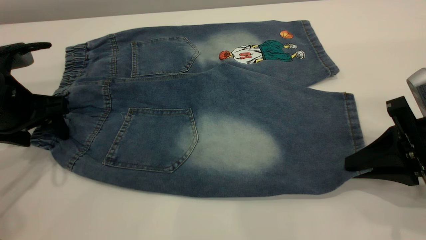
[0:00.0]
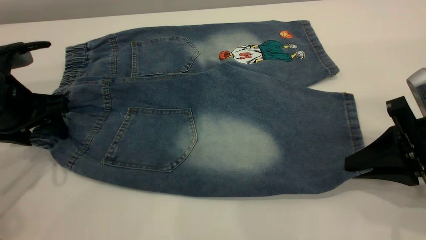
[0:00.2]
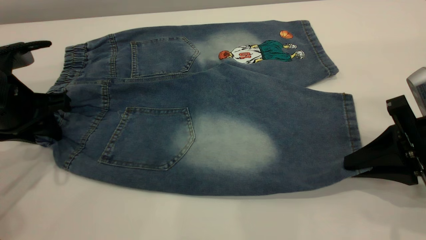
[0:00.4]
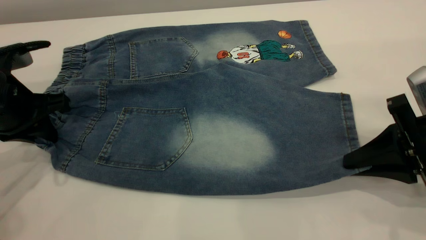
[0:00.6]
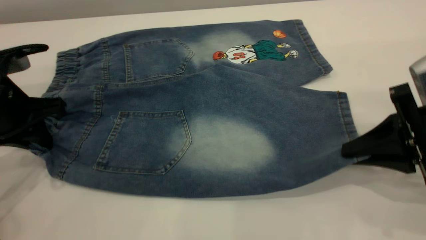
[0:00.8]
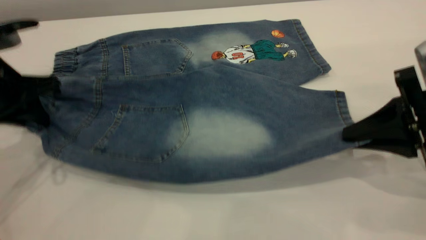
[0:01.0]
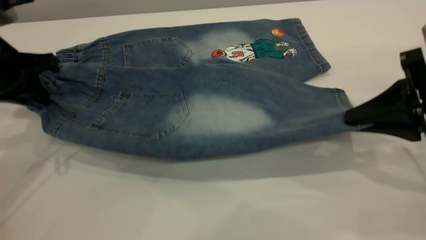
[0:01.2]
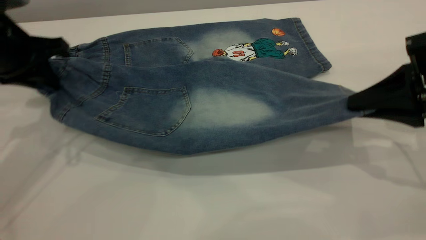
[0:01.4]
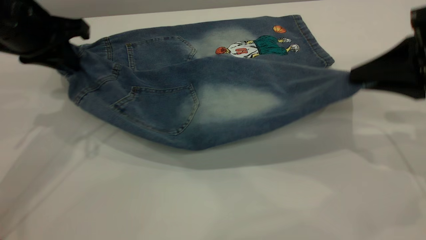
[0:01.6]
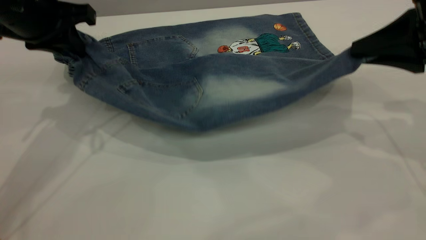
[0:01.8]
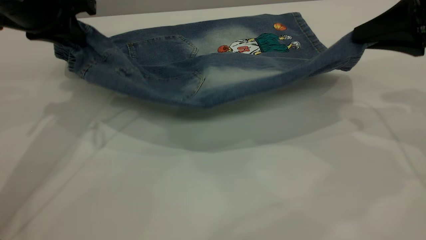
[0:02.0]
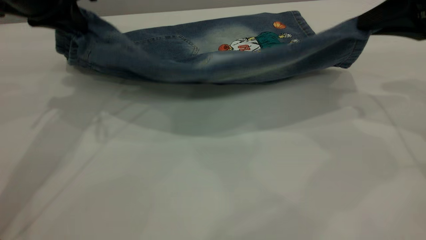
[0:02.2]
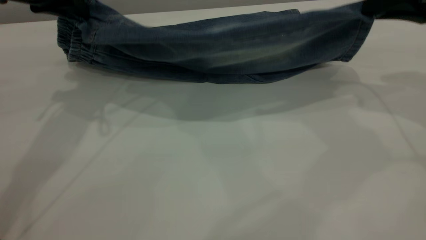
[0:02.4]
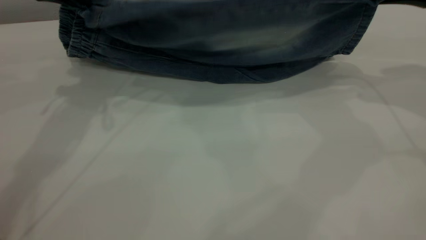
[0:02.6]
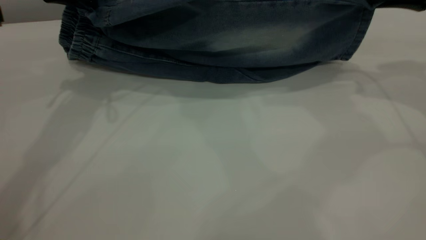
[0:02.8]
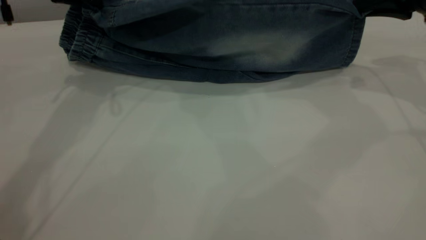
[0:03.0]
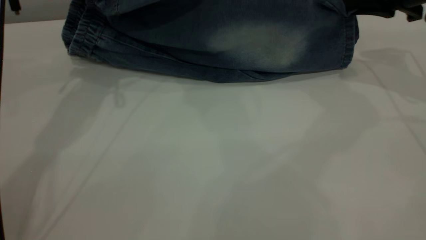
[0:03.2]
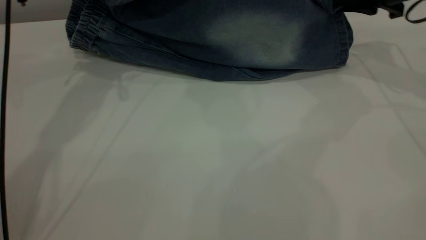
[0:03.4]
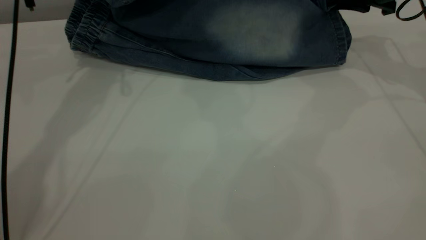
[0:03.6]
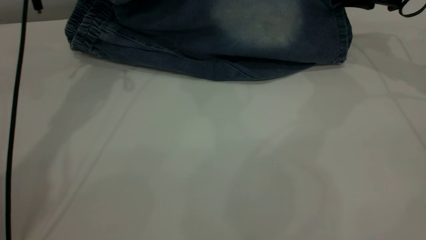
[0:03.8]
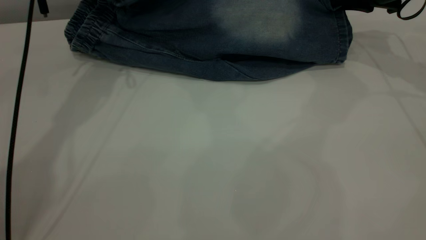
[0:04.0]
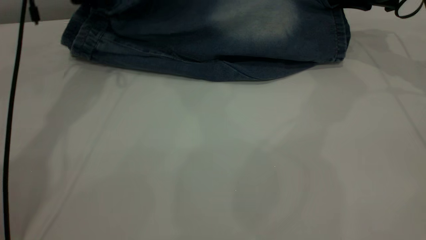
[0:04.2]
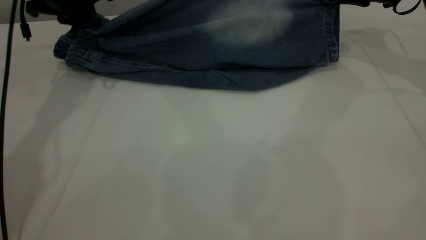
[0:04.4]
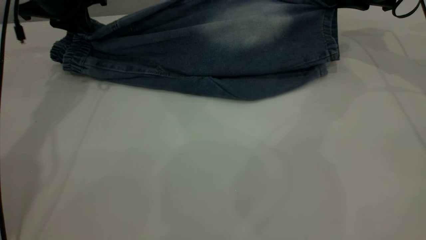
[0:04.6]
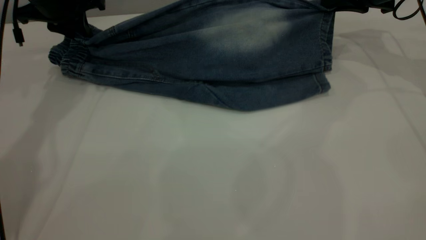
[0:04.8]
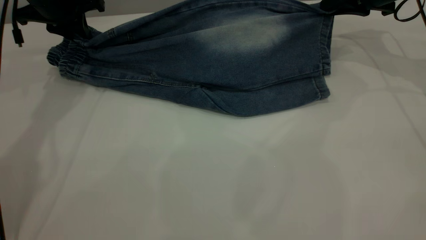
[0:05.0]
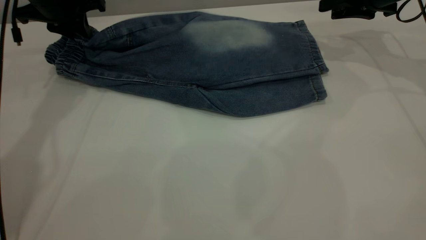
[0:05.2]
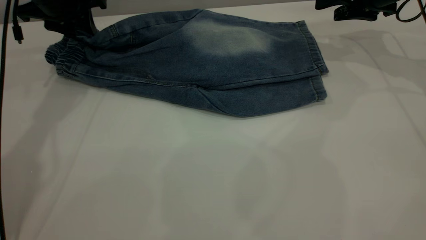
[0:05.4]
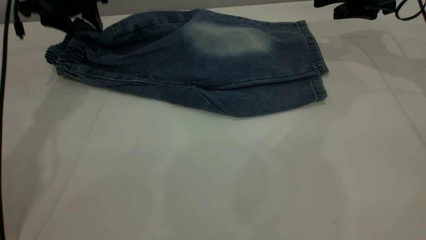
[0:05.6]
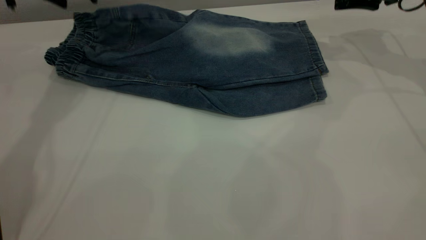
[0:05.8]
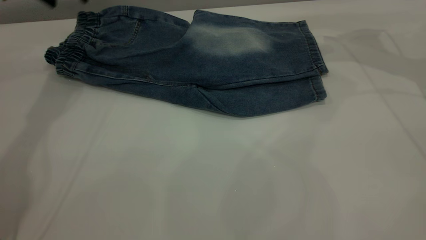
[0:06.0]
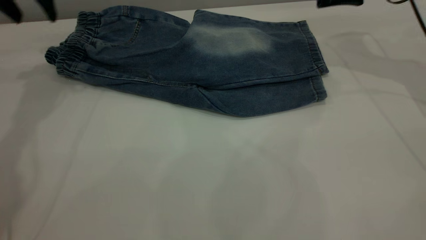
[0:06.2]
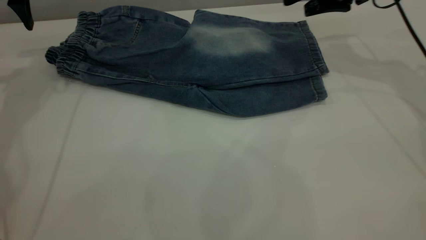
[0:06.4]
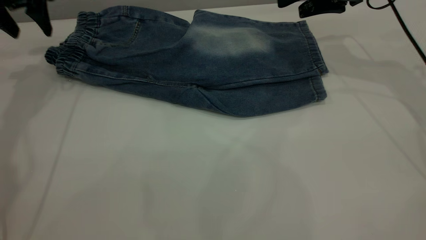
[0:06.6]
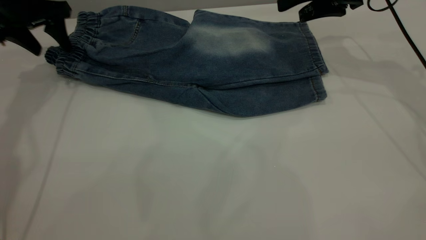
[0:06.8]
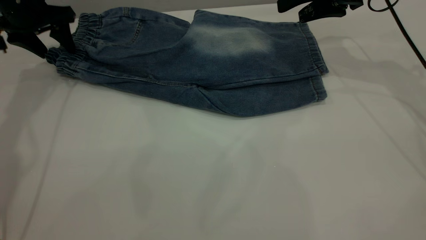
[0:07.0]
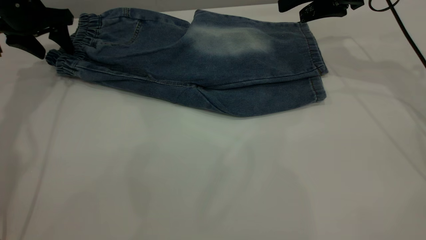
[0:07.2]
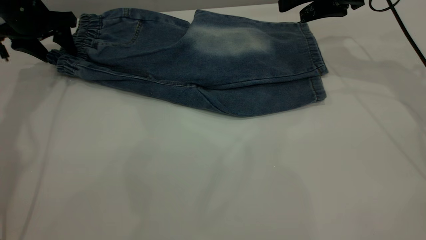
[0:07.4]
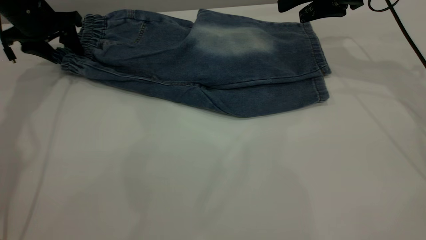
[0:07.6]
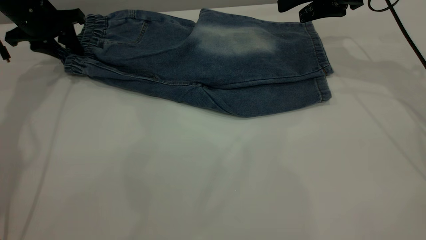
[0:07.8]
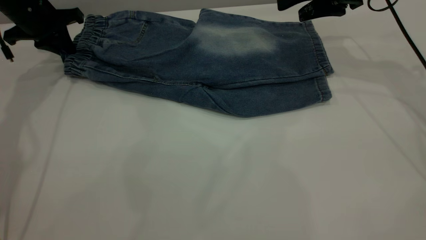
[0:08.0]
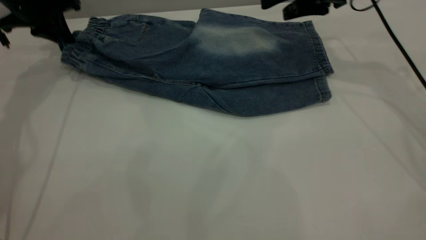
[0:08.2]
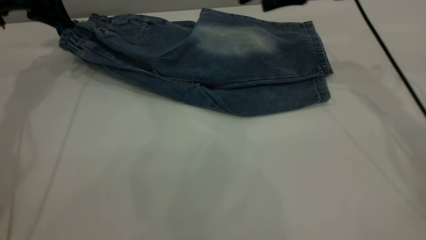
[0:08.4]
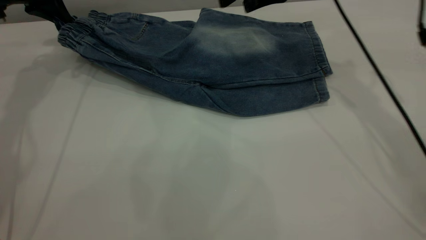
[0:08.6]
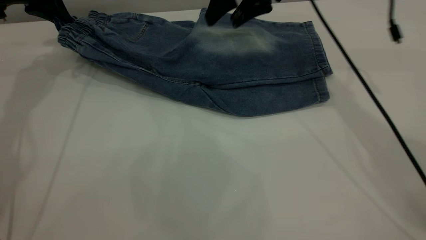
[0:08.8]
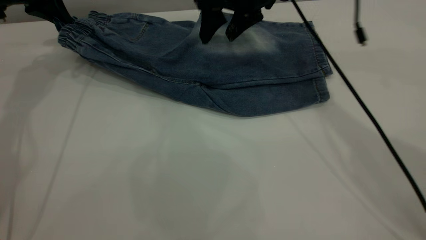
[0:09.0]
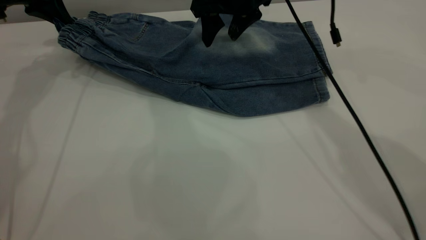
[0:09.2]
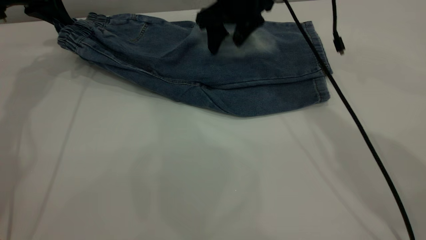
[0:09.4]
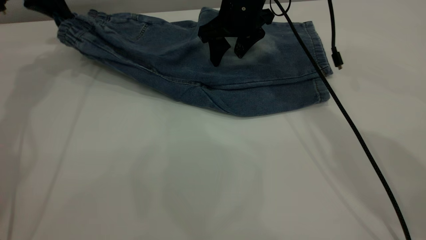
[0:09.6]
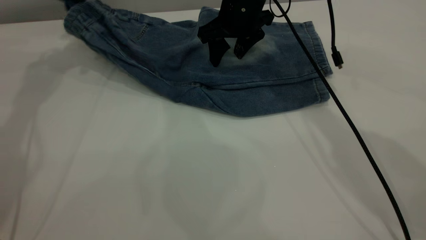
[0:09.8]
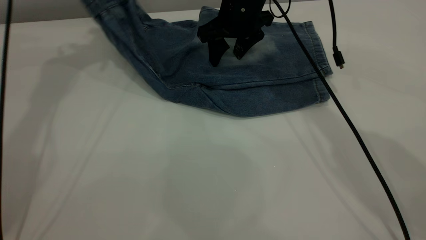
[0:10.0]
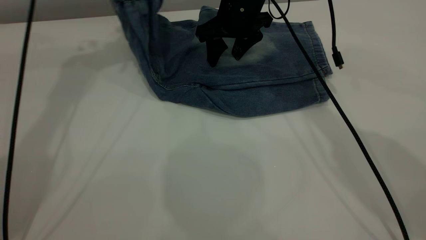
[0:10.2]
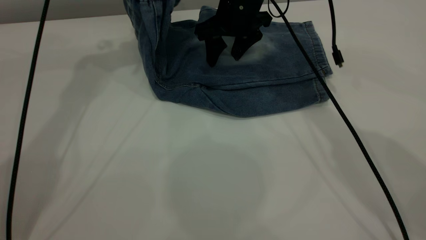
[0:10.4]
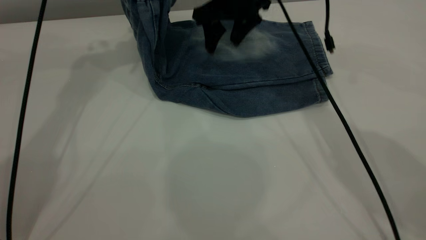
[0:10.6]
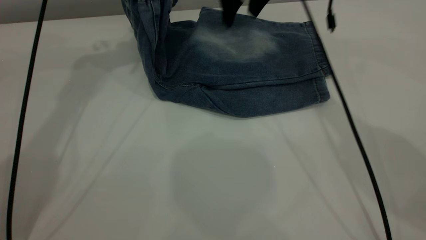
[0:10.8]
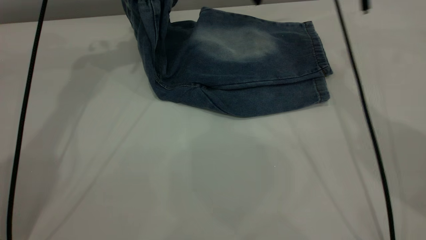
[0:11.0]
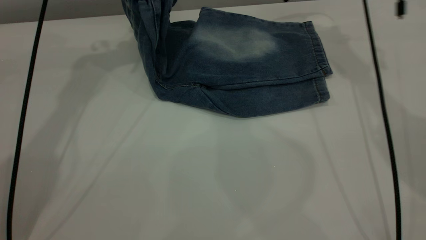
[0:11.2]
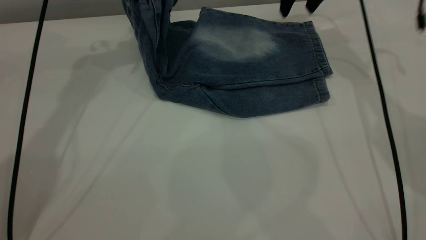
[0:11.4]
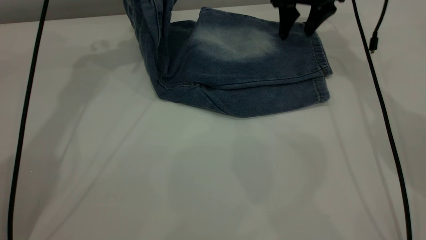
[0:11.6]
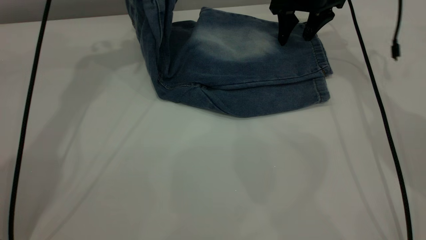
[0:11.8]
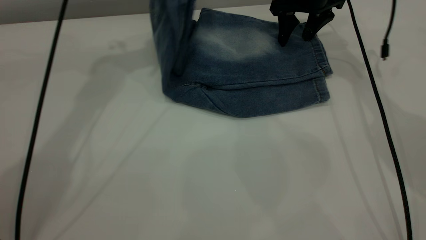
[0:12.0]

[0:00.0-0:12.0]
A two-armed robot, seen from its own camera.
Step, 0:00.0 to 0:06.2: Fold the bottom of the pants upward.
0:00.0 to 0:01.6: The left gripper moves upward, forward and to the right, approximately 10 cm, and closes up, while the right gripper moves upward, some 10 cm.
0:01.6 to 0:03.0: The left gripper heads forward, covering some 10 cm. Meanwhile the right gripper travels forward by roughly 15 cm.
0:03.0 to 0:04.4: The left gripper goes approximately 10 cm downward and forward; the right gripper moves forward, roughly 10 cm.
0:04.4 to 0:06.0: The right gripper opens its fingers; the left gripper shifts some 5 cm upward, and opens up.
0:06.0 to 0:07.6: The left gripper heads downward, covering about 10 cm; the right gripper is displaced to the left by roughly 5 cm.
0:07.6 to 0:09.0: The left gripper shifts approximately 5 cm upward, and closes up; the right gripper is displaced to the left by roughly 15 cm.
0:09.0 to 0:10.4: The left gripper shifts roughly 15 cm to the right and upward.
0:10.4 to 0:12.0: The left gripper goes about 5 cm to the right. The right gripper is displaced to the right and forward by about 15 cm.

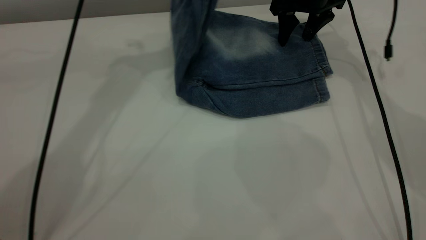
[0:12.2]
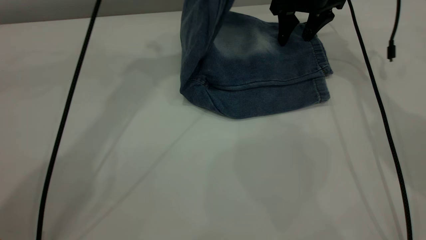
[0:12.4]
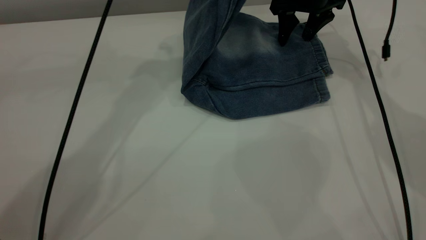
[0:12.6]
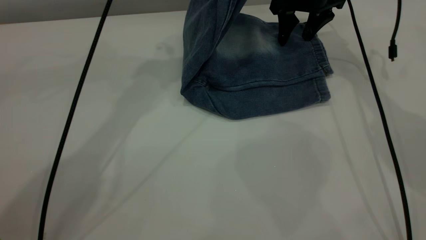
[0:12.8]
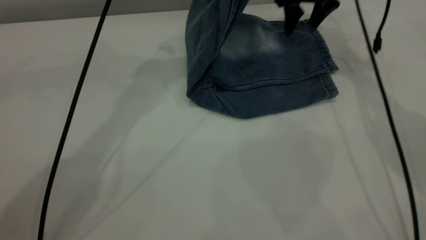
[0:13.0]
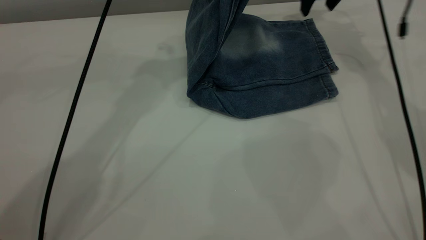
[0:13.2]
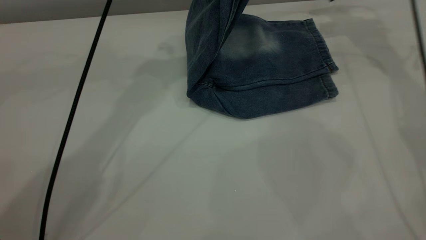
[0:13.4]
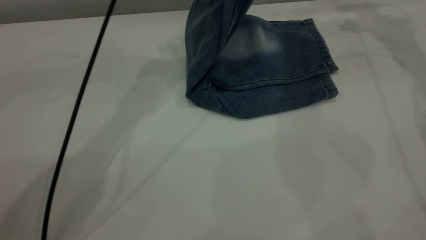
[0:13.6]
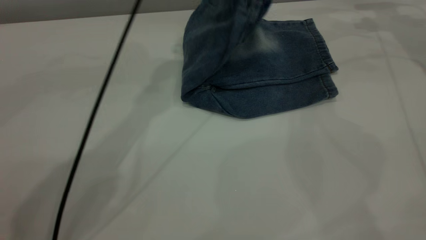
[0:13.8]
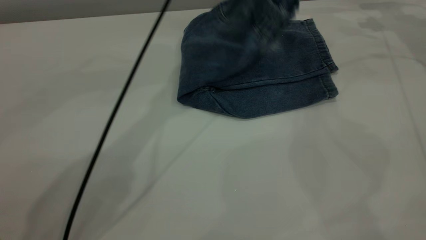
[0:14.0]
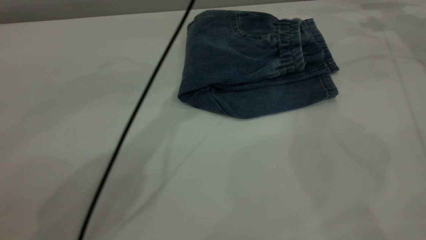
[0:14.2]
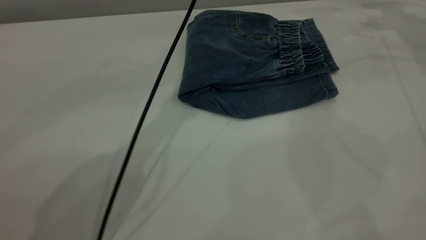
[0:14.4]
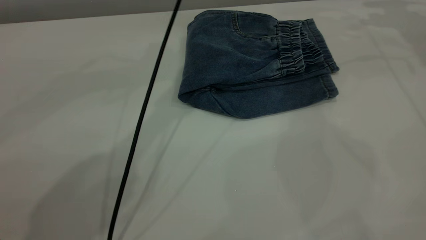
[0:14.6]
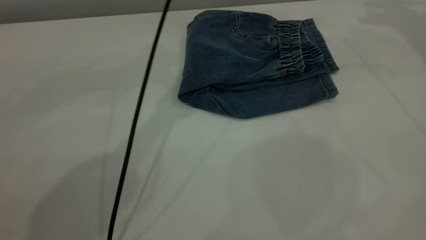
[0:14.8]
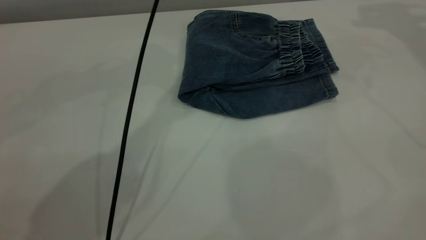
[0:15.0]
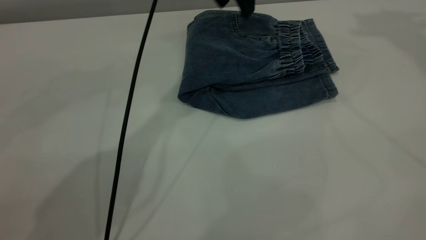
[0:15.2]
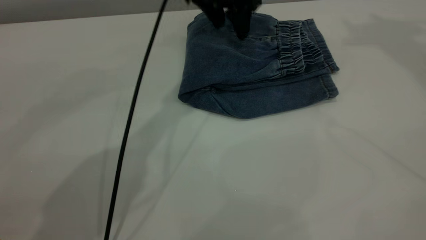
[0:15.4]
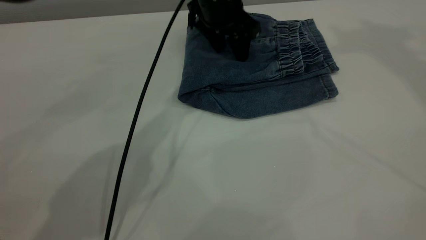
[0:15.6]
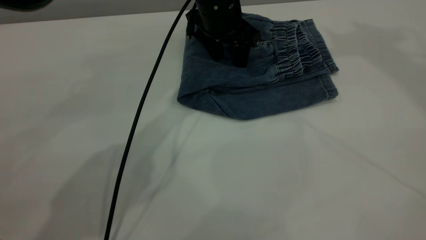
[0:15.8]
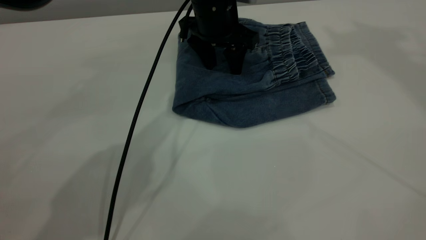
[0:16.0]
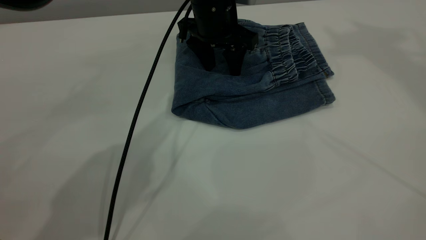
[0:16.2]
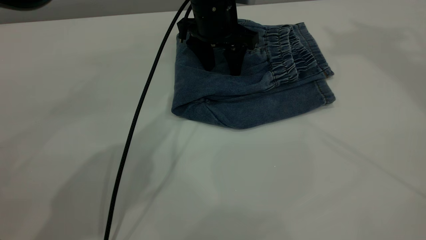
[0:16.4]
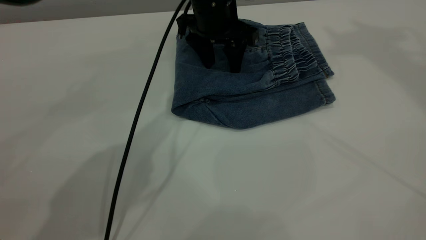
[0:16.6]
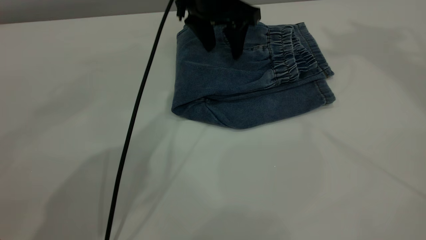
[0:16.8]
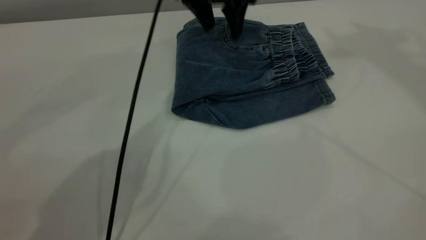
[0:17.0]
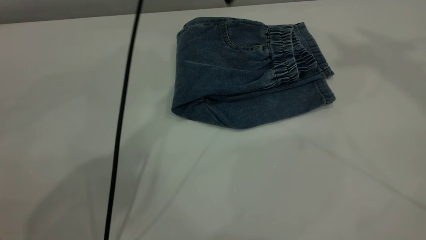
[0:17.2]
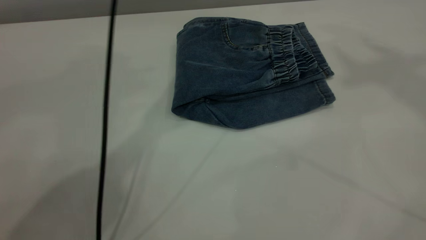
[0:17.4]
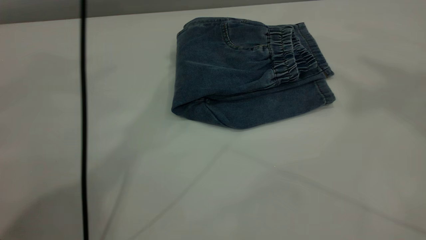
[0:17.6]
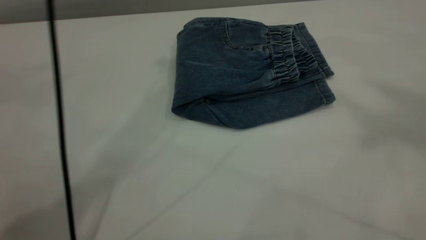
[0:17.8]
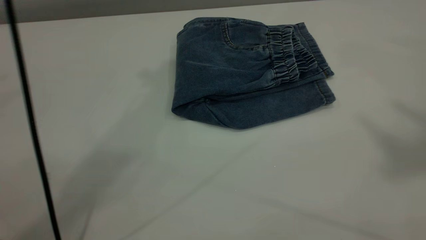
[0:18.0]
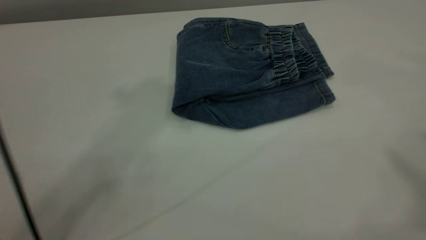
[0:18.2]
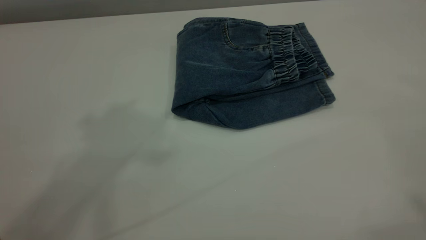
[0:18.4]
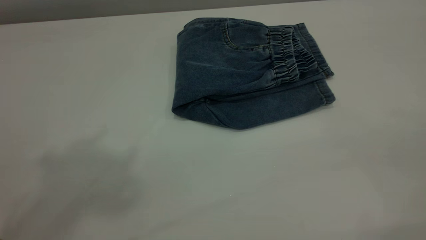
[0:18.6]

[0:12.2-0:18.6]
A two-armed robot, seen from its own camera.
Step, 0:12.2 to 0:14.6: Fold the pants from left to right.
0:12.2 to 0:13.8: The right gripper travels to the right and upward by approximately 20 cm, while the left gripper heads to the right and downward, covering approximately 10 cm.
0:13.8 to 0:15.4: The left gripper goes up and down, some 10 cm each way, reversing 2 times, and opens up. The right gripper moves upward, roughly 35 cm.
0:15.4 to 0:17.0: The grippers stay close to where they were, moving slightly.
0:17.0 to 0:18.6: The right gripper is displaced backward by about 35 cm; the left gripper heads upward, backward and to the left, covering some 50 cm.
